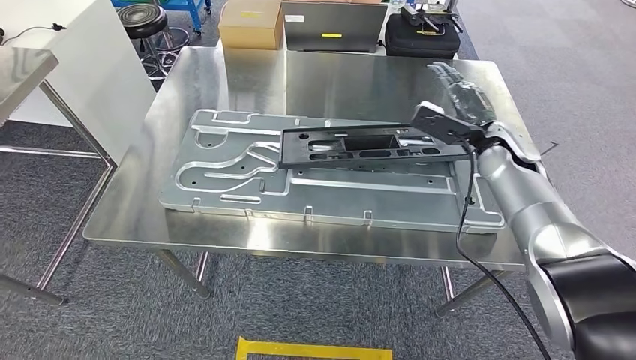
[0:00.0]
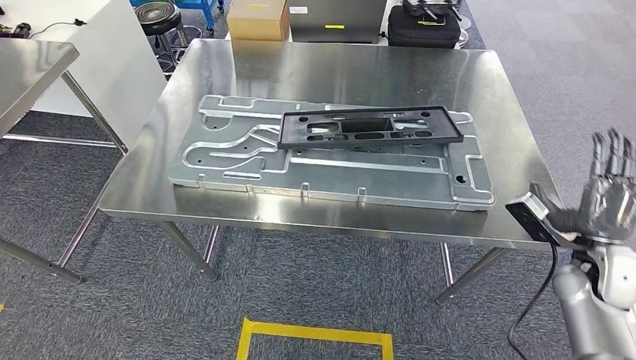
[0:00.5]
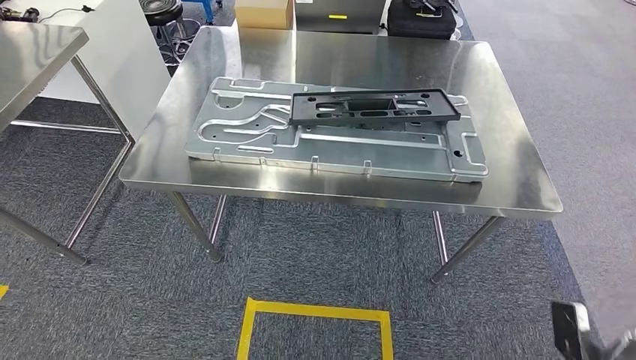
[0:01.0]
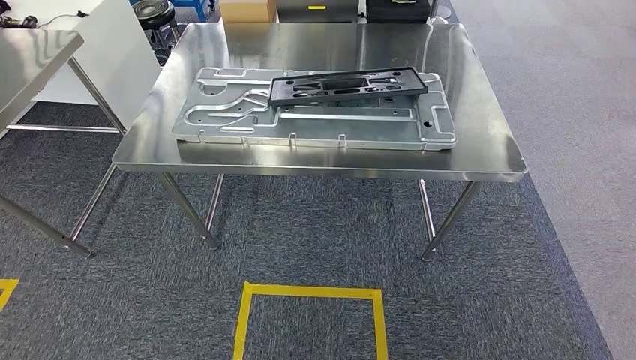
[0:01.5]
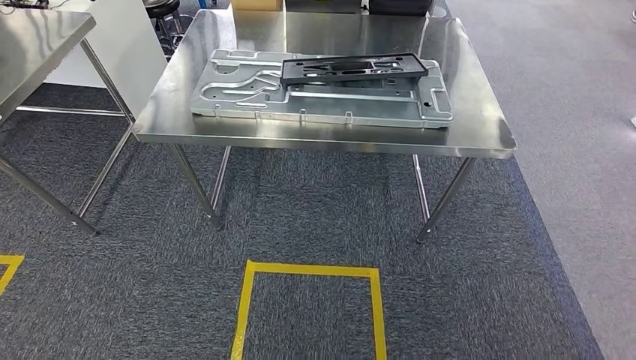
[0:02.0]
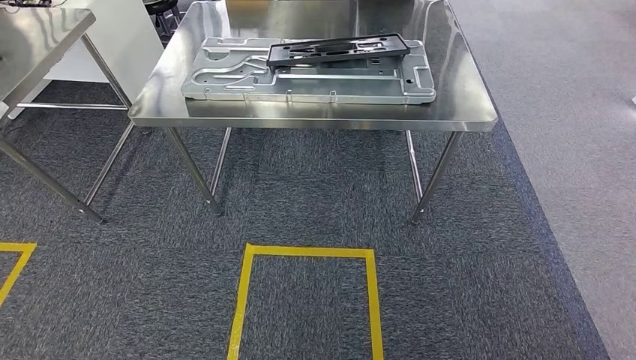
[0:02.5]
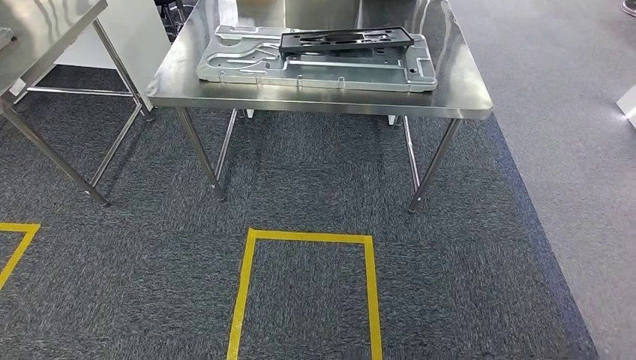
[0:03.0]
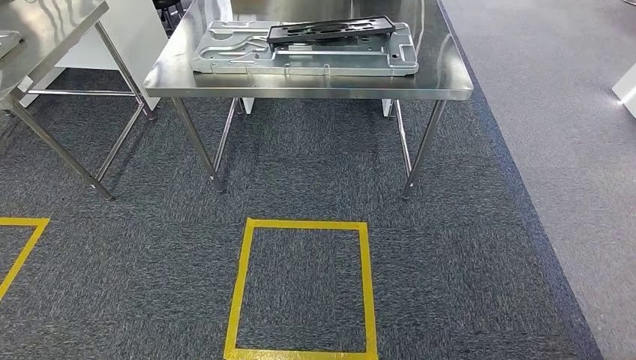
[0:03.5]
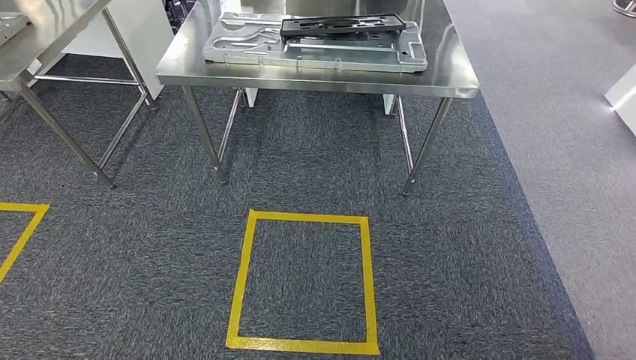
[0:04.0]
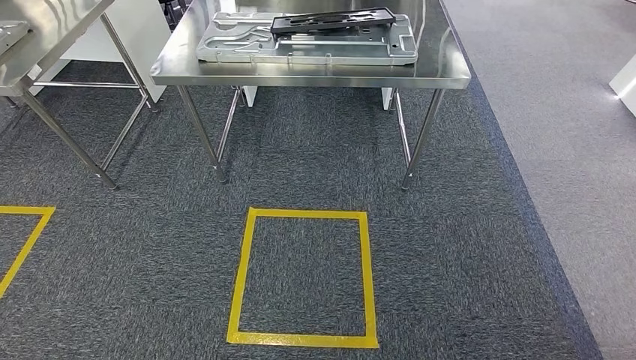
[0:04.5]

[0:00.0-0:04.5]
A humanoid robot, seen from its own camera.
Step, 0:03.5 to 0:04.5: Return to the initial position at the shelf.

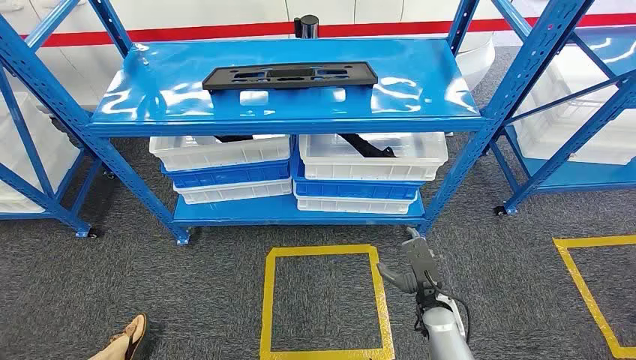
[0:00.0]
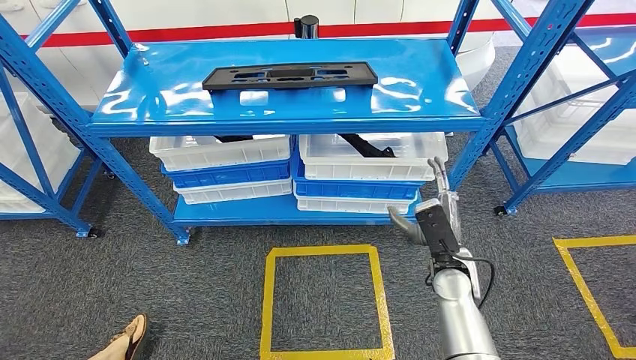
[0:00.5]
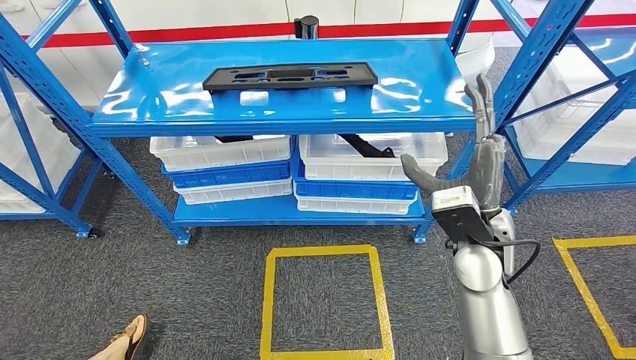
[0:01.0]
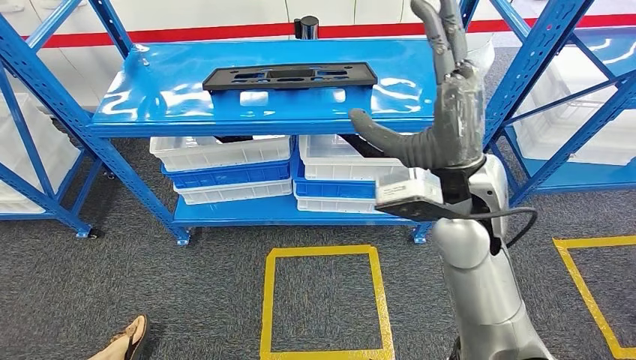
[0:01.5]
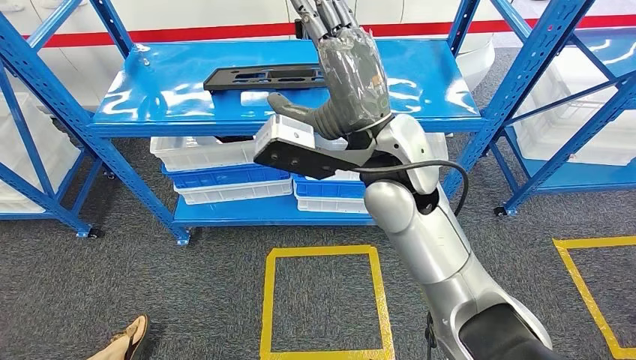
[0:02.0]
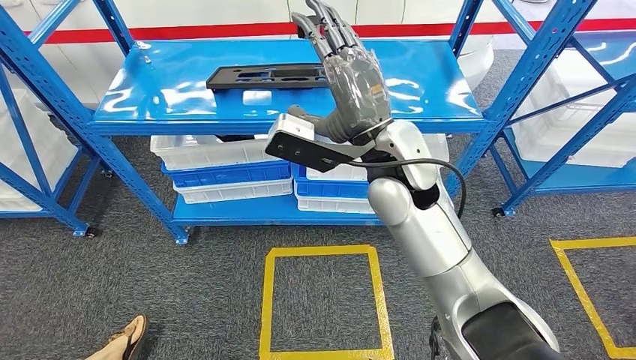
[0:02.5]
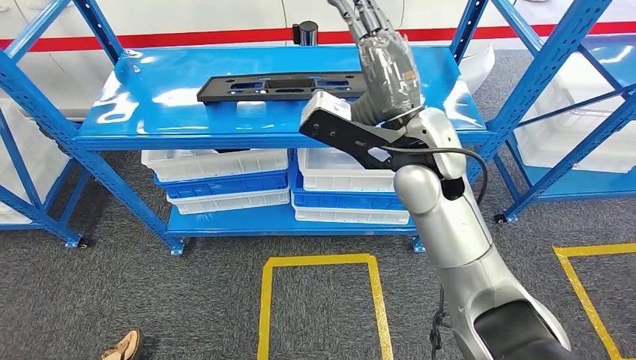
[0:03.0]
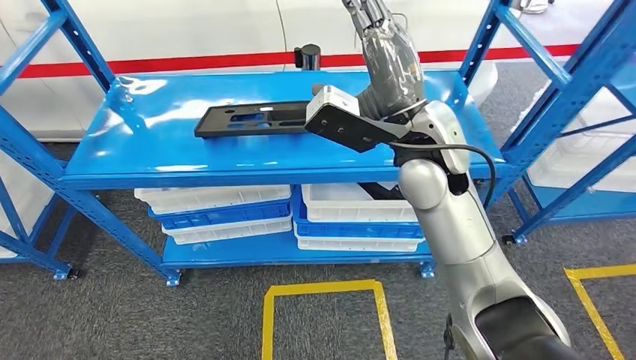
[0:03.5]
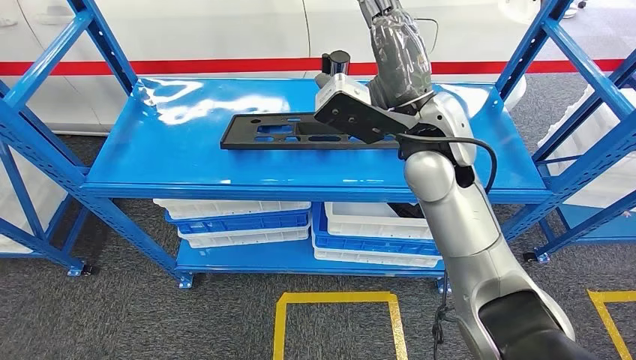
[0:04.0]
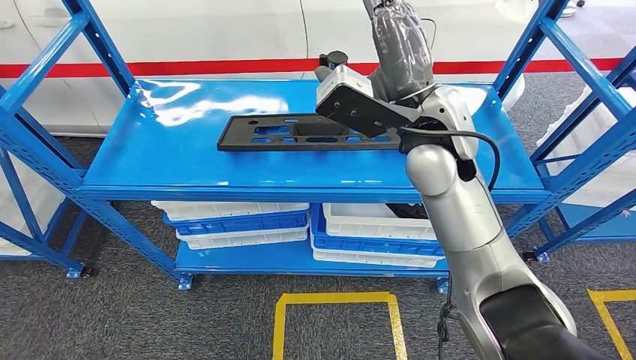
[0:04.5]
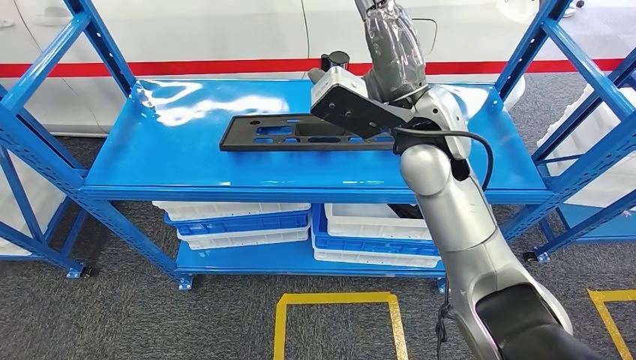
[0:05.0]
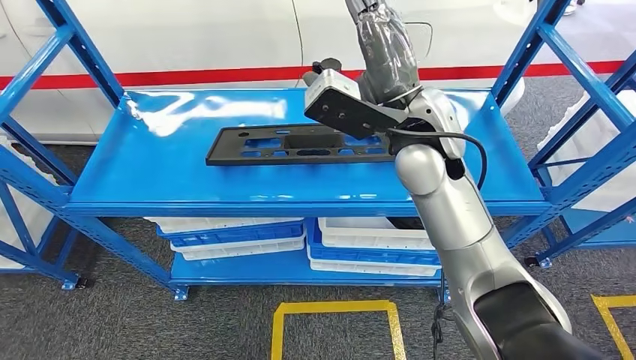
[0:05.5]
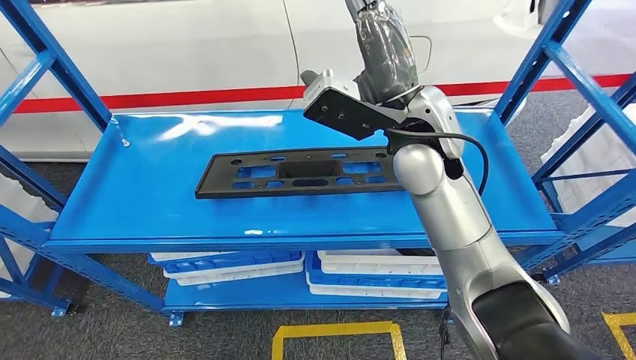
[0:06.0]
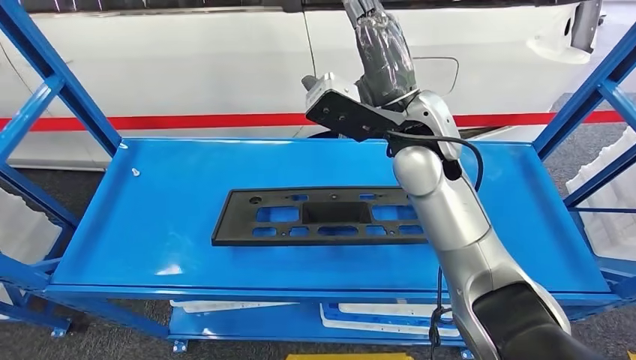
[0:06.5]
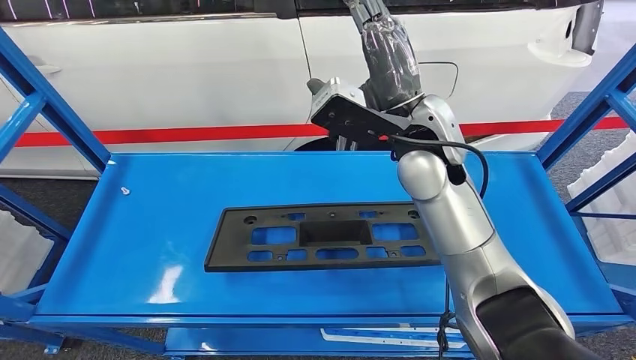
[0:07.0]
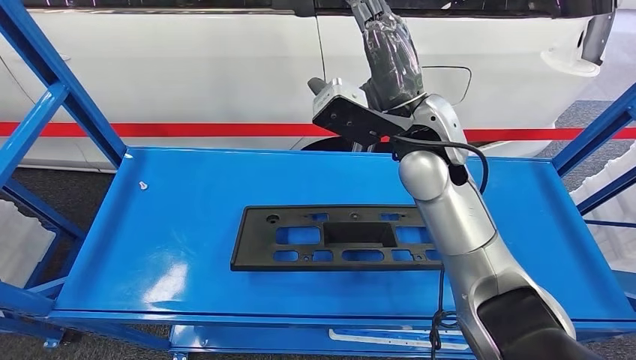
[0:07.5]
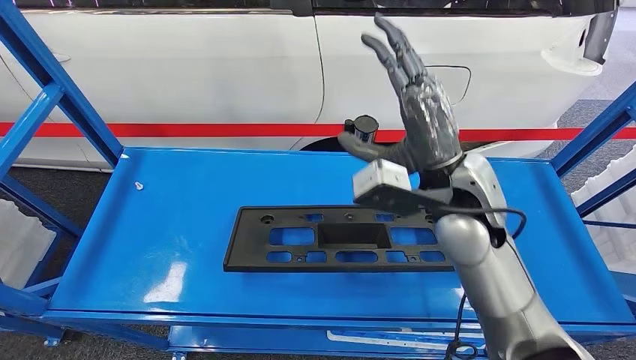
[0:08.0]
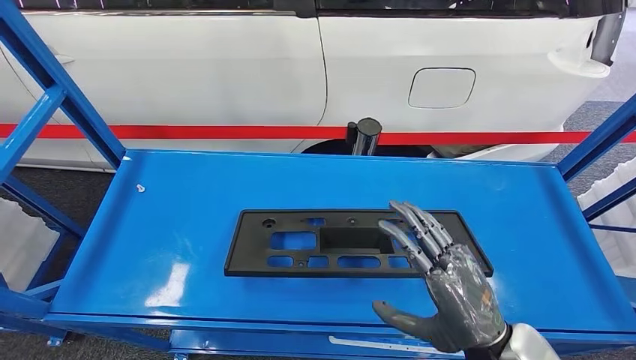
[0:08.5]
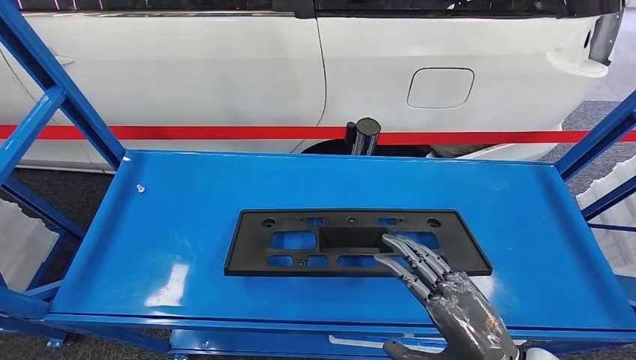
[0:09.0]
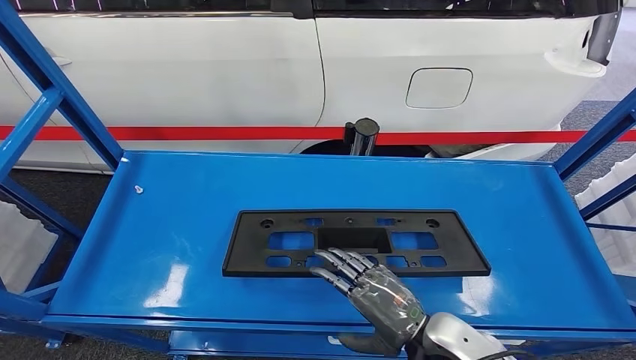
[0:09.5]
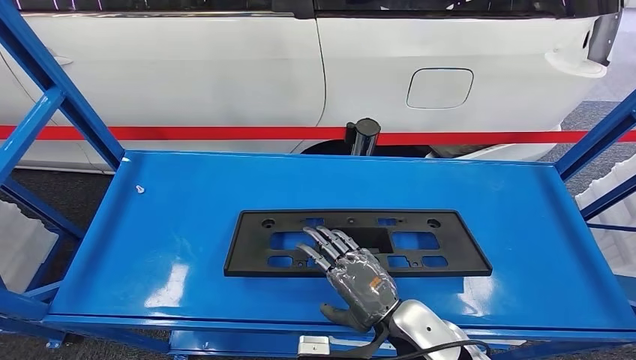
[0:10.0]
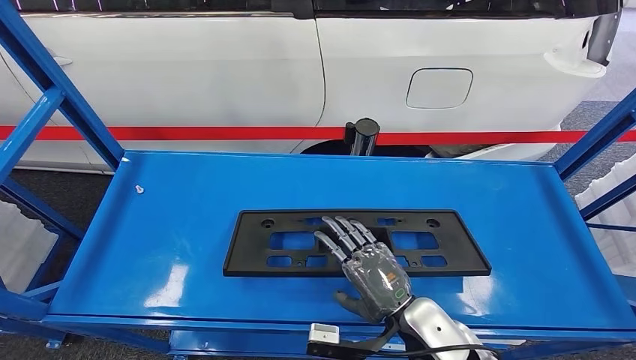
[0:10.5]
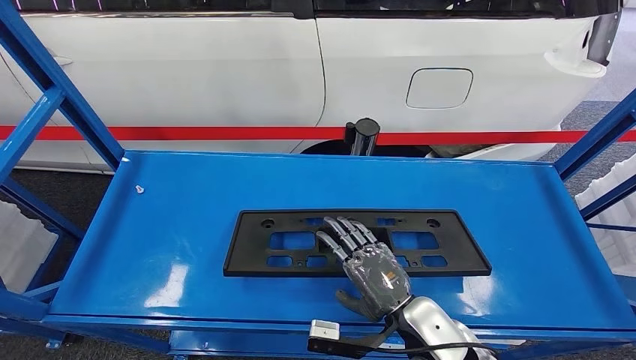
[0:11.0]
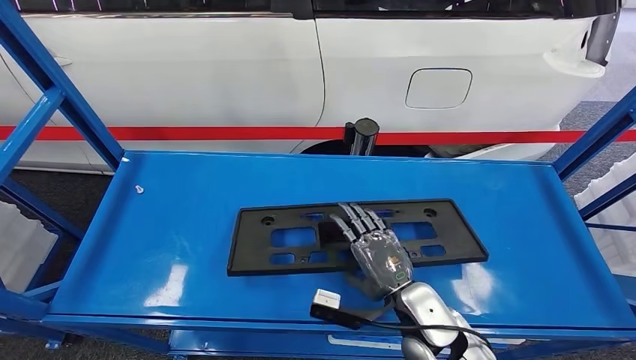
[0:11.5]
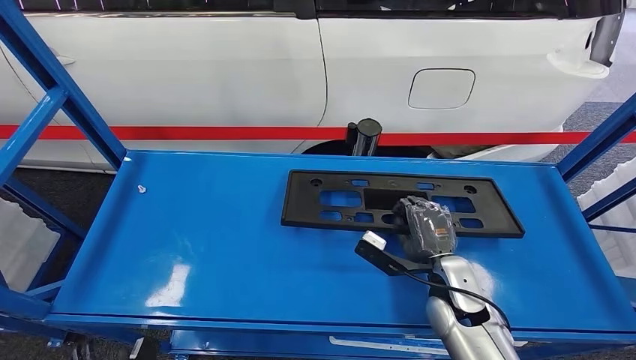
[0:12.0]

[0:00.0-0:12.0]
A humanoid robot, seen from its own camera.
0:10.0 to 0:12.0: The right hand goes some 10 cm to the right and forward.

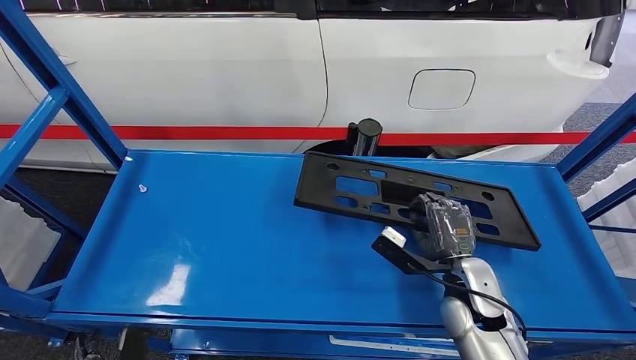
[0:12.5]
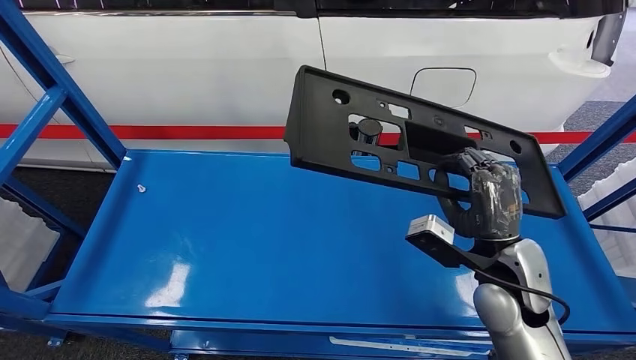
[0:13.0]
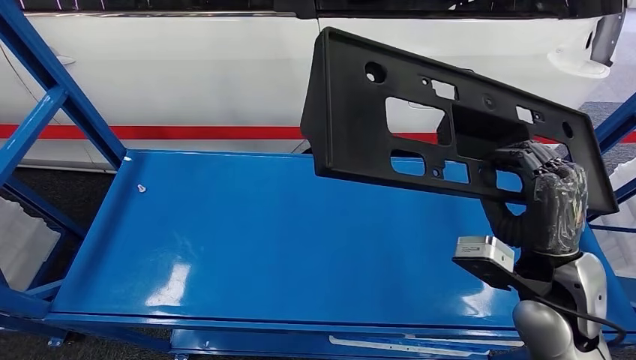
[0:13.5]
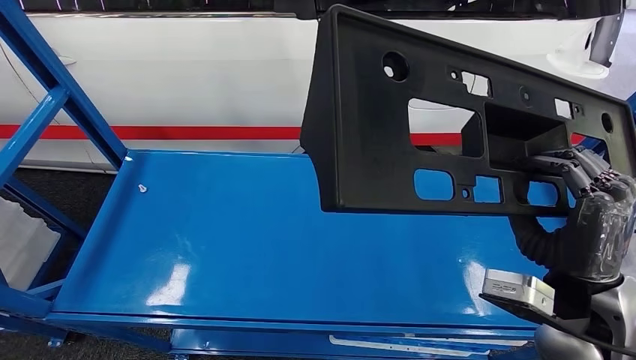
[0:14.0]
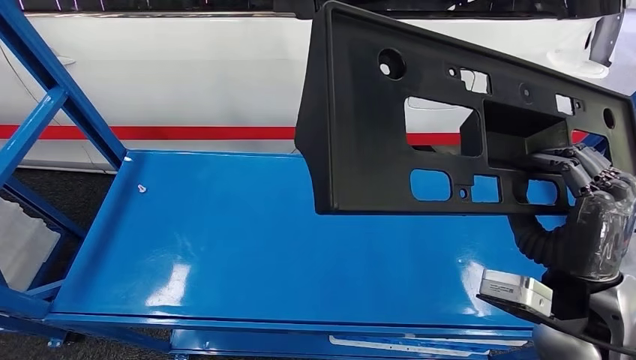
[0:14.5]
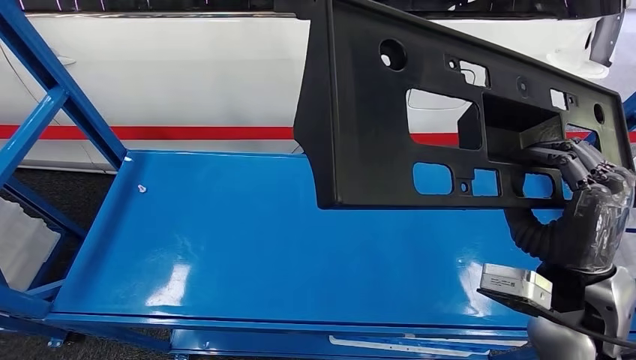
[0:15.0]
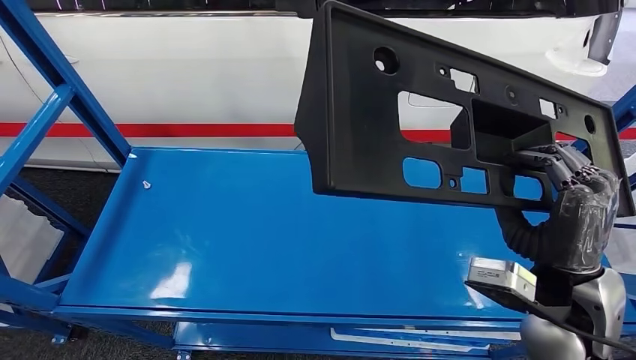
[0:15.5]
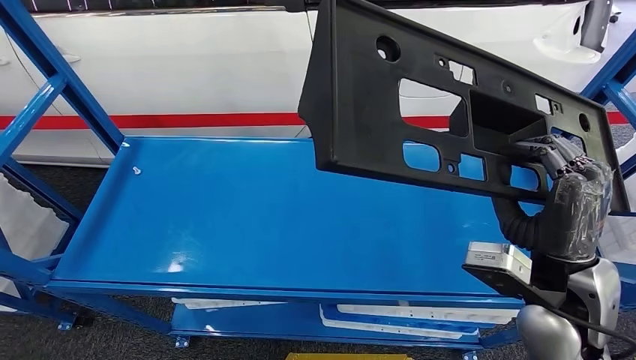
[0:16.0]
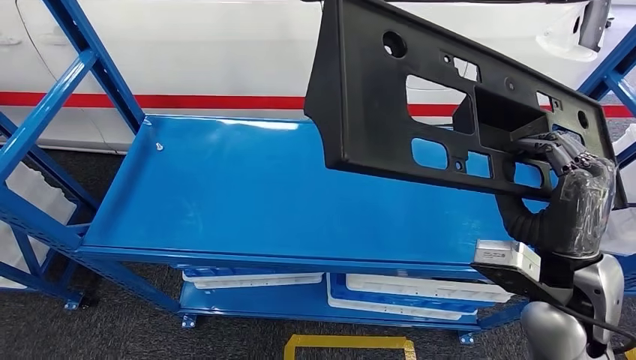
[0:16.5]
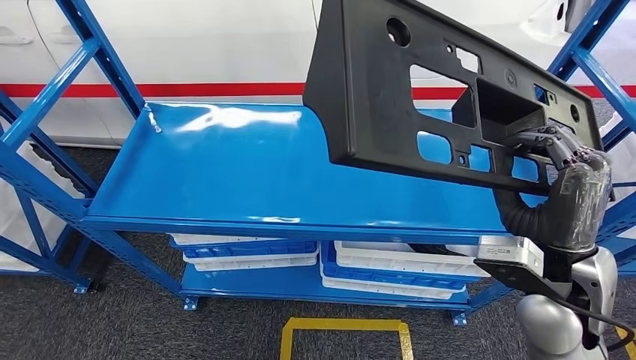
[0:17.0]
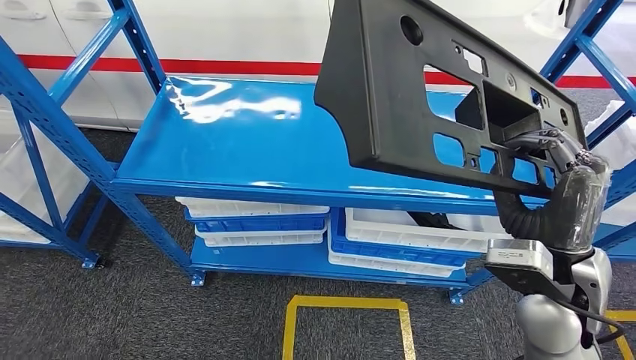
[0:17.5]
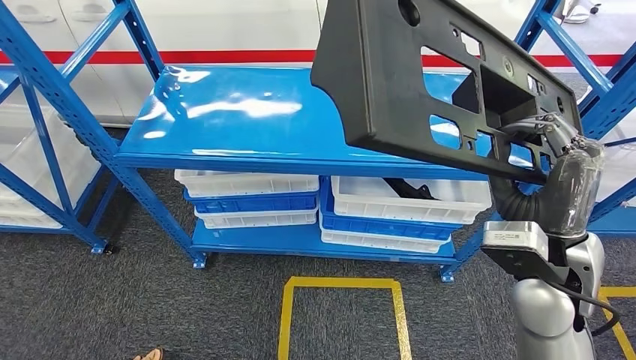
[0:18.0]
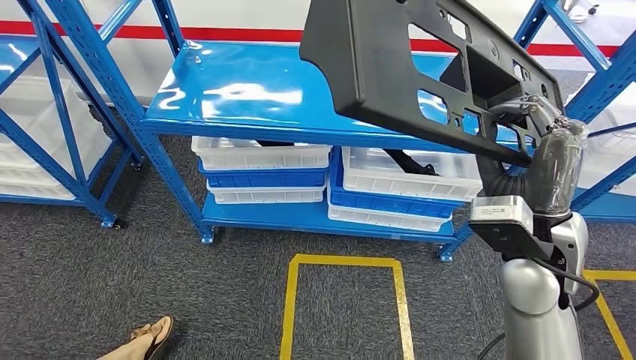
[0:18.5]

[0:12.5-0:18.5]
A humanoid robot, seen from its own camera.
Step, 0:12.5 to 0:16.0: Pick up the large material from the shelf.
